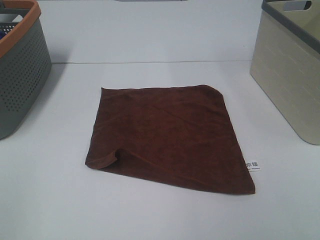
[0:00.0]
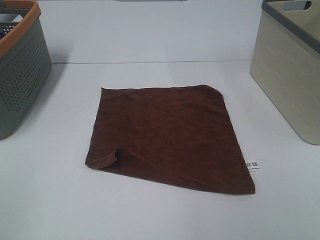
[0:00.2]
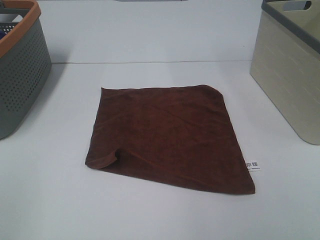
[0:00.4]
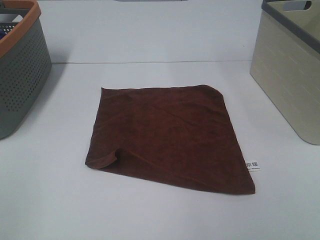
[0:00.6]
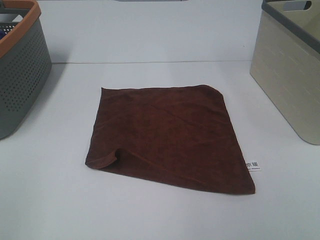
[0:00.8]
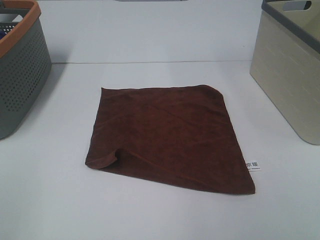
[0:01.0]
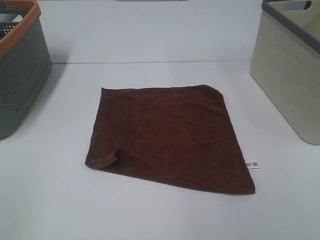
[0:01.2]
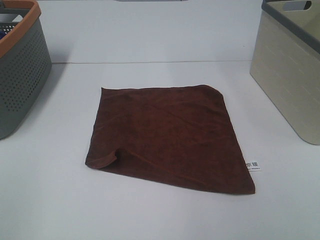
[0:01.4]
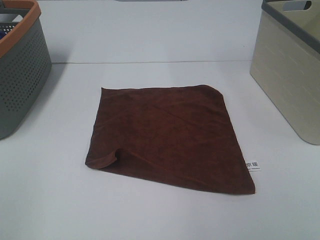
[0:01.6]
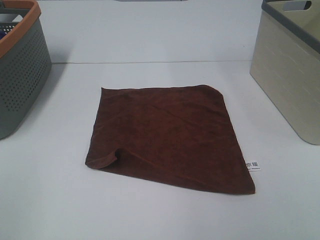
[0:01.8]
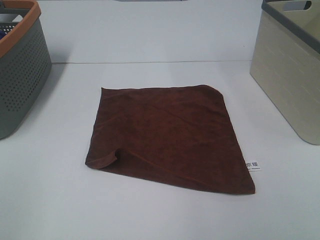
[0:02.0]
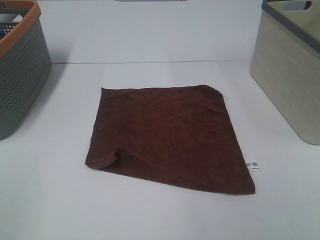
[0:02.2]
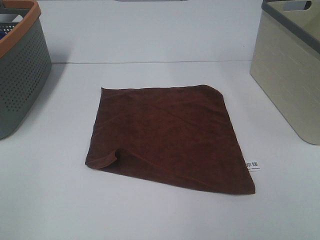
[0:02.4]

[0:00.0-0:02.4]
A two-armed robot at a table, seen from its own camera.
Task of the whole recording: Remove the towel and place it.
0:01.2 to 0:02.4: The two grippers keep their place.

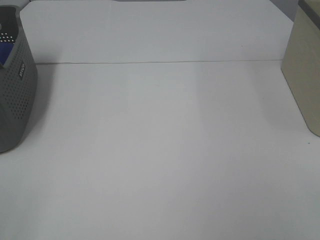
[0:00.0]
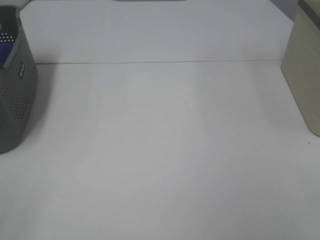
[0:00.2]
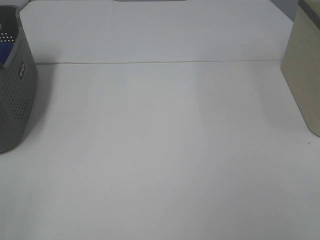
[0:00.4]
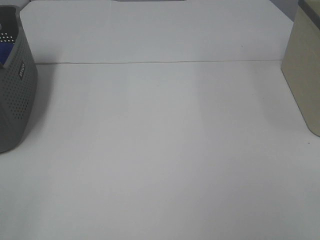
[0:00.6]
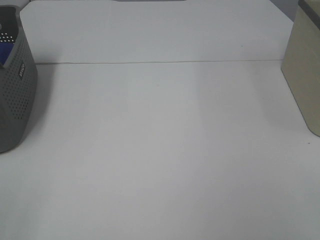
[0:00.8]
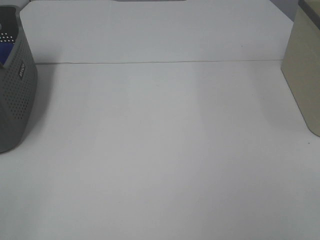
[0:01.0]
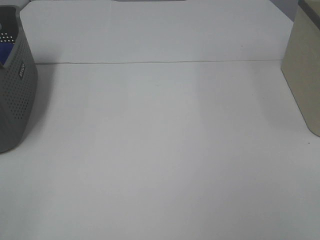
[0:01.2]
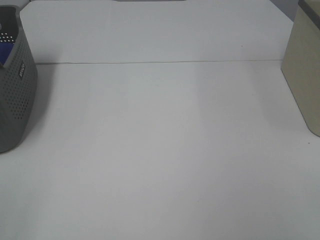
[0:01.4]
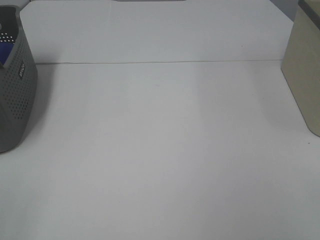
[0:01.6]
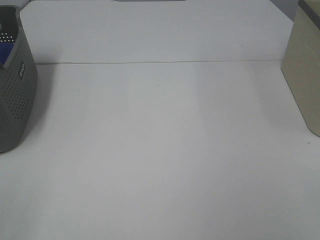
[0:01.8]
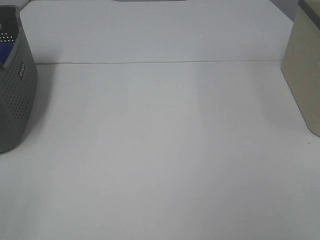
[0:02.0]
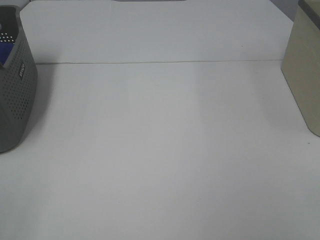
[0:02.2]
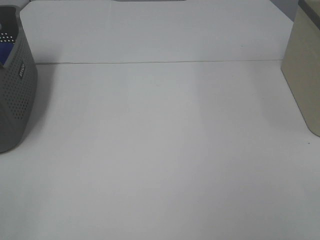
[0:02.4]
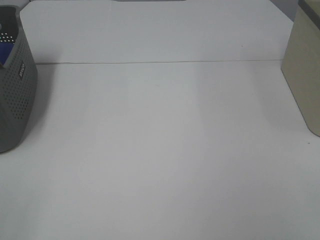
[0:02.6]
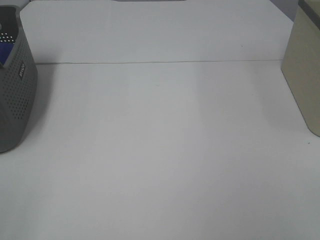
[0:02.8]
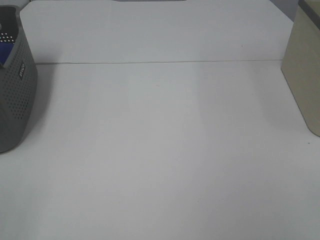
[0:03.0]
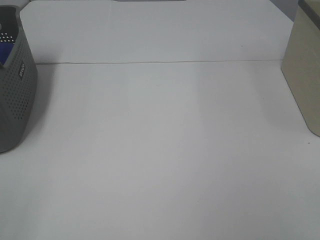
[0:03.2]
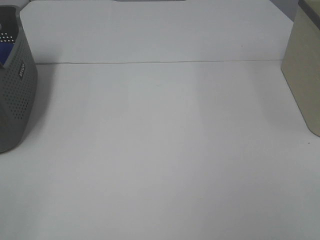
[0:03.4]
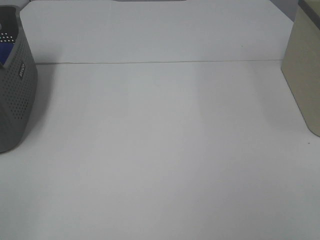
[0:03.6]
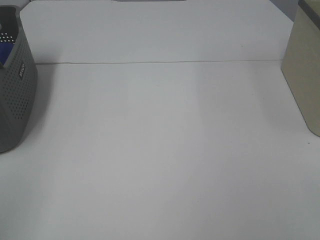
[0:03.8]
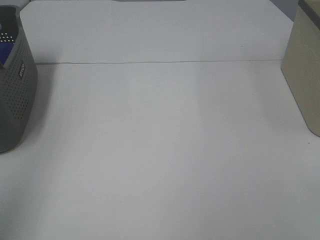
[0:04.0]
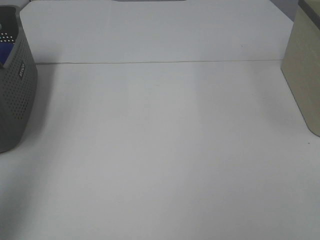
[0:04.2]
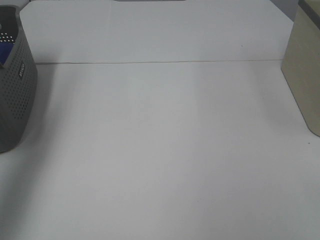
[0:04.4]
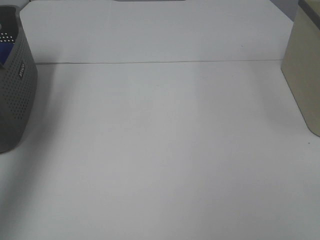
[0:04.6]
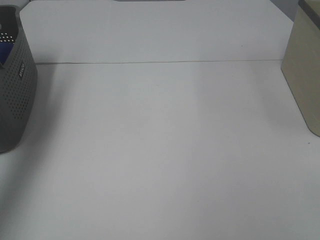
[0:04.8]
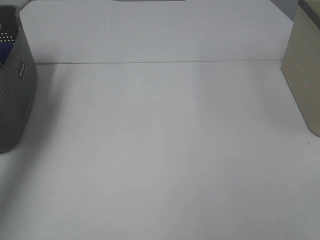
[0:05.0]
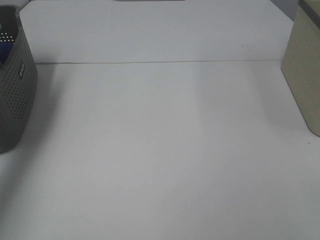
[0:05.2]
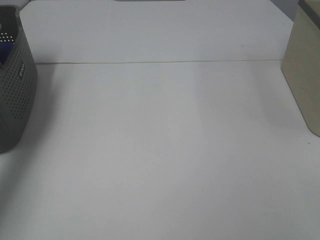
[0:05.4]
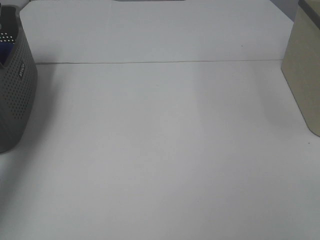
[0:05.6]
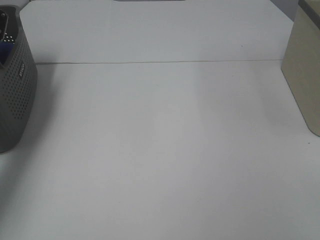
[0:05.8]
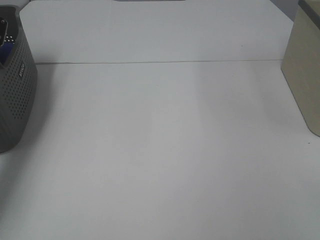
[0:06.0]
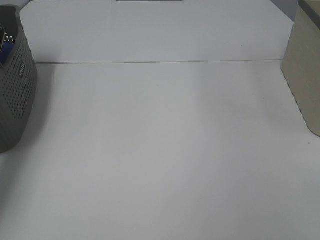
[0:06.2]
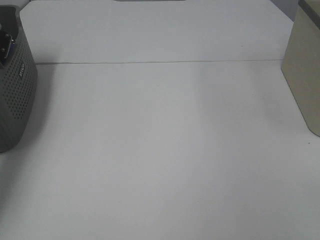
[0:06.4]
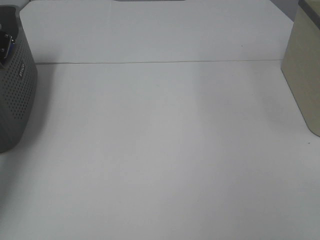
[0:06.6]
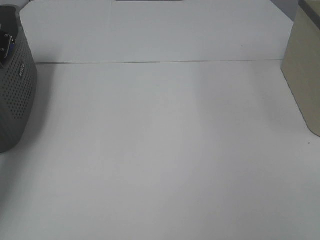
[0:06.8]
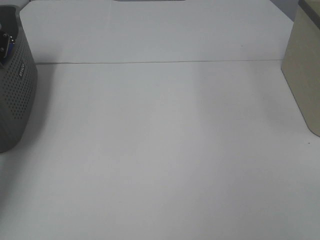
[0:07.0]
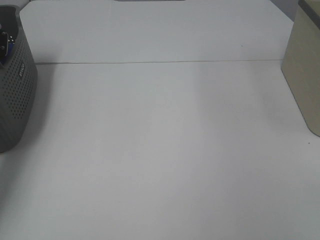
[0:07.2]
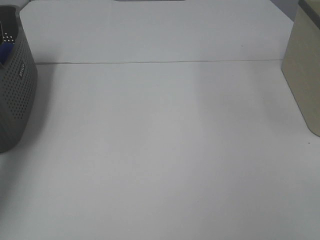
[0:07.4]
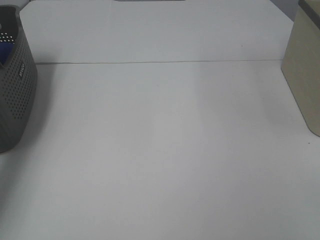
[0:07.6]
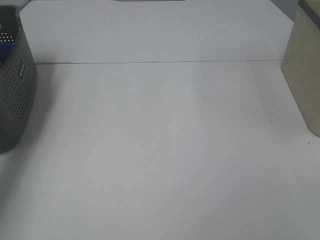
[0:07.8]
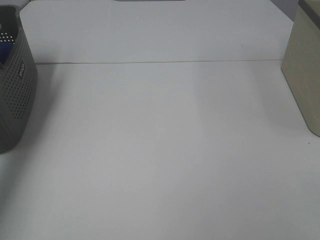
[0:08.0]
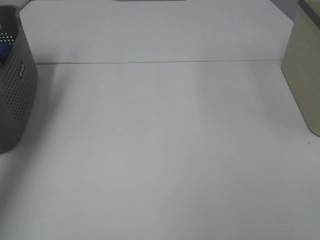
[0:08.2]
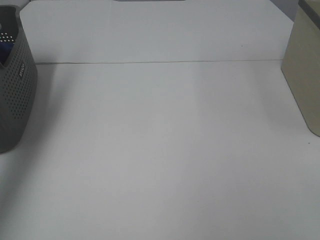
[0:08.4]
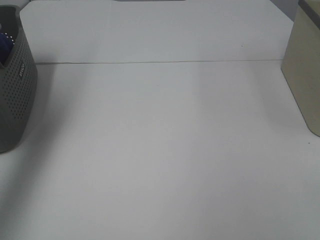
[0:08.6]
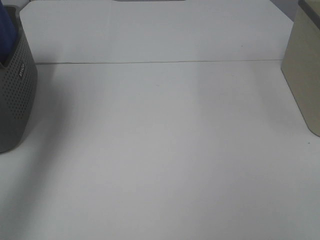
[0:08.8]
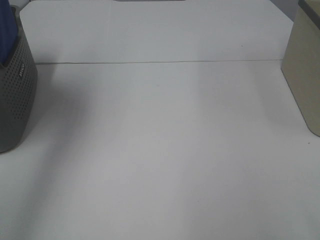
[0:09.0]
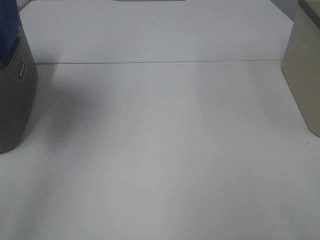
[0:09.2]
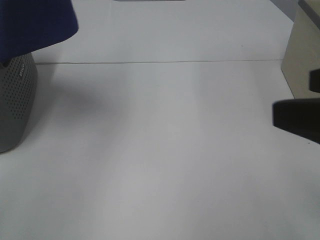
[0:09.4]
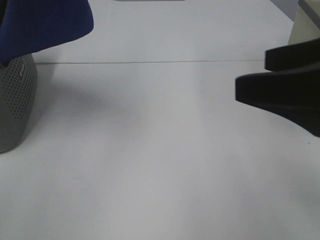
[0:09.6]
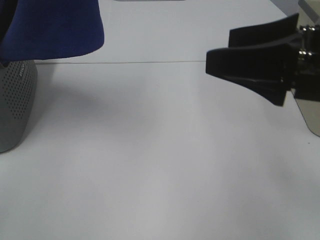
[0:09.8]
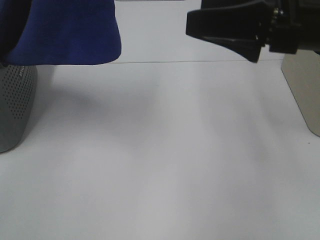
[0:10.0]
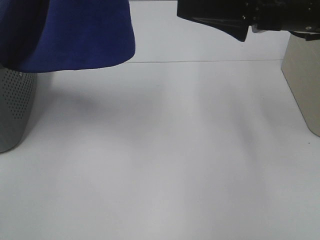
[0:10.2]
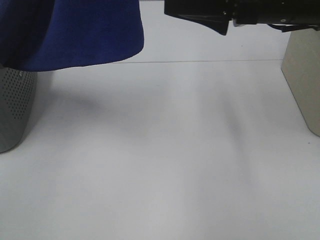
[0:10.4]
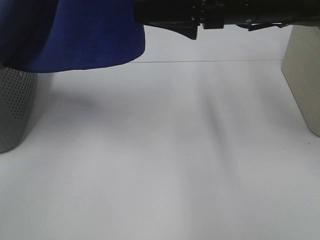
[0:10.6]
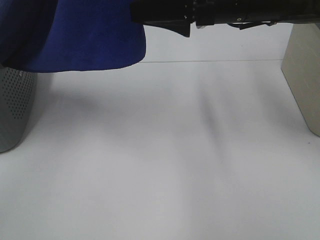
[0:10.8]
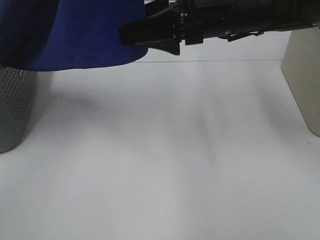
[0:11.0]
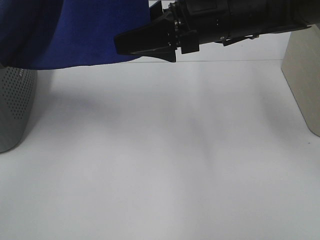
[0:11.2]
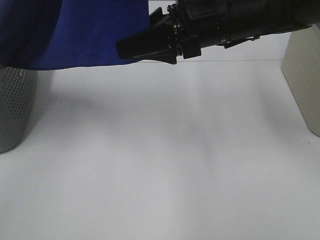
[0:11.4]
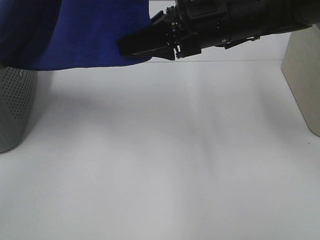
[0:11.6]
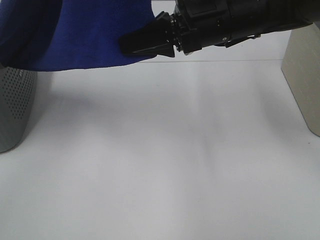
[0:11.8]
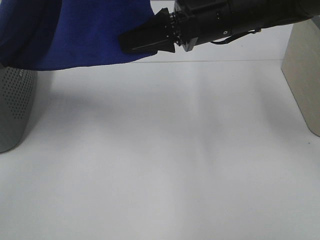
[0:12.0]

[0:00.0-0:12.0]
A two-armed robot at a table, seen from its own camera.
Task of the whole recording: Remove the towel and place it.
Step, 0:08.8 to 0:12.0: Right hand: grab a corner of the blue towel and straighten it.
0:00.0 to 0:03.0: Both grippers stay about where they are.
0:03.0 to 0:04.4: The left gripper is displaced forward and upward by about 30 cm.
0:04.4 to 0:06.0: The left gripper is displaced downward and forward by about 30 cm.
0:07.6 to 0:09.0: The left gripper is displaced upward, backward and to the right by roughly 35 cm.
0:09.0 to 0:10.4: The right gripper heads forward and to the left, covering roughly 30 cm. The left gripper shifts about 15 cm to the right and backward.
0:10.4 to 0:12.0: The right gripper is displaced to the left by approximately 5 cm, and closes up.

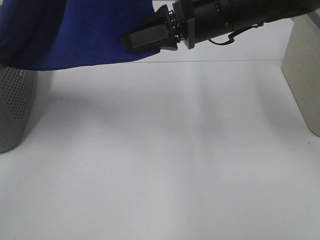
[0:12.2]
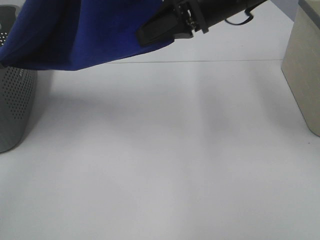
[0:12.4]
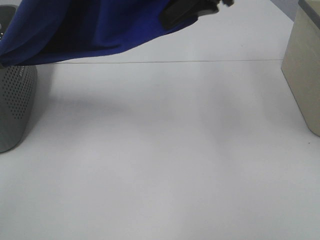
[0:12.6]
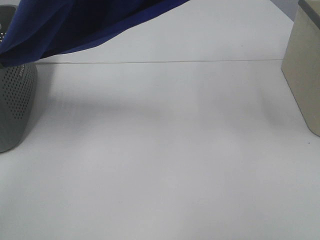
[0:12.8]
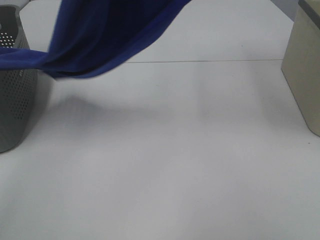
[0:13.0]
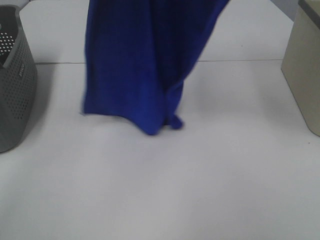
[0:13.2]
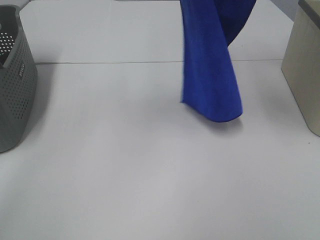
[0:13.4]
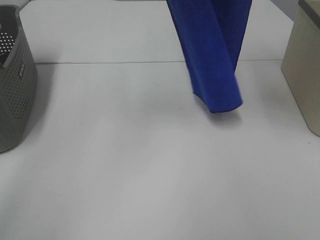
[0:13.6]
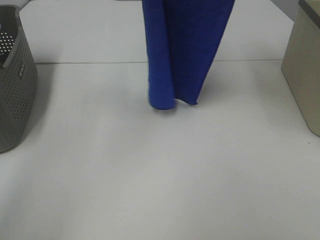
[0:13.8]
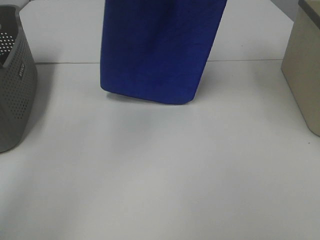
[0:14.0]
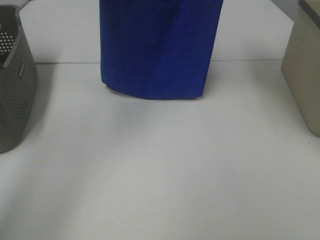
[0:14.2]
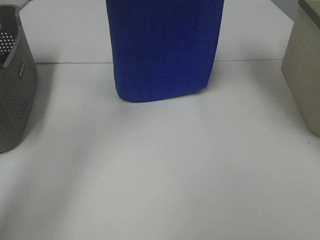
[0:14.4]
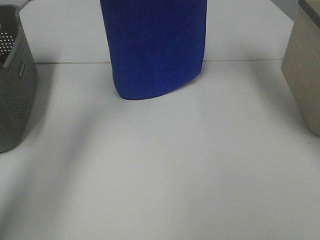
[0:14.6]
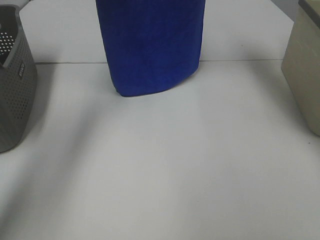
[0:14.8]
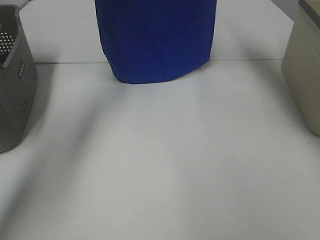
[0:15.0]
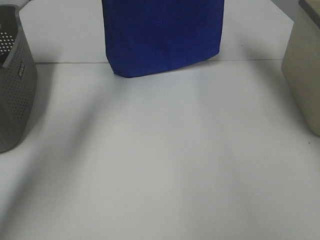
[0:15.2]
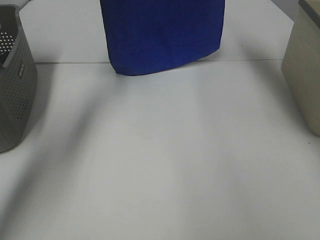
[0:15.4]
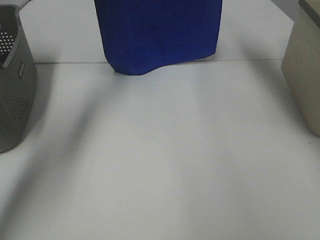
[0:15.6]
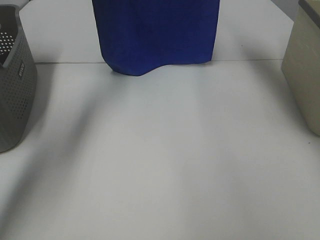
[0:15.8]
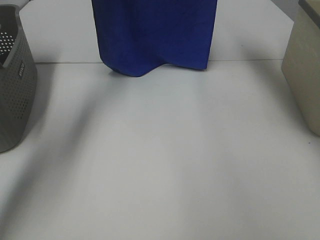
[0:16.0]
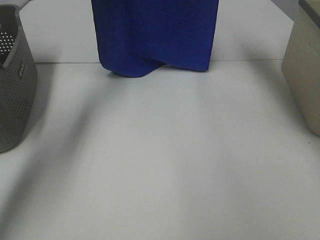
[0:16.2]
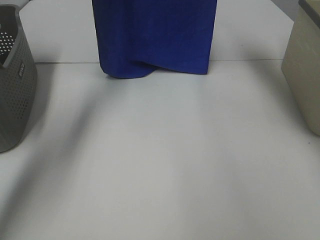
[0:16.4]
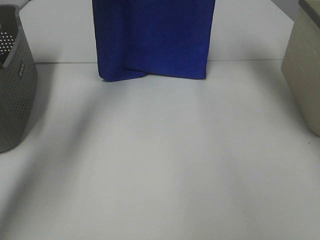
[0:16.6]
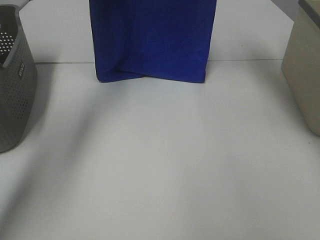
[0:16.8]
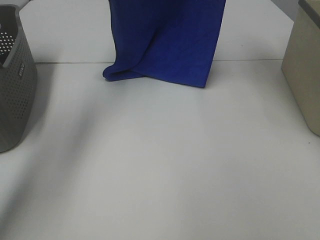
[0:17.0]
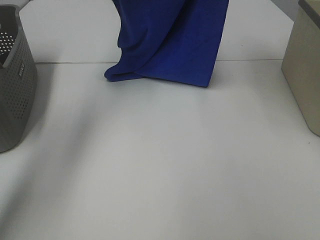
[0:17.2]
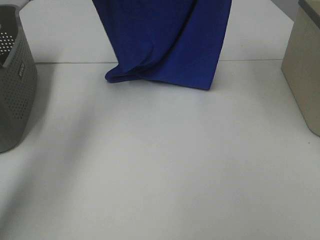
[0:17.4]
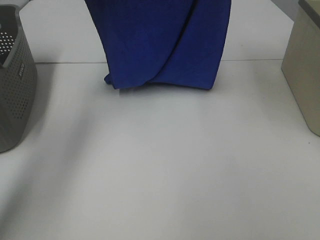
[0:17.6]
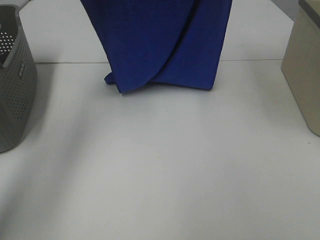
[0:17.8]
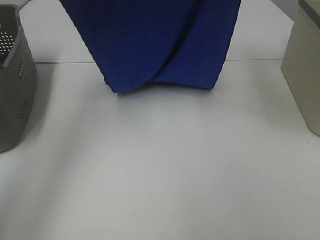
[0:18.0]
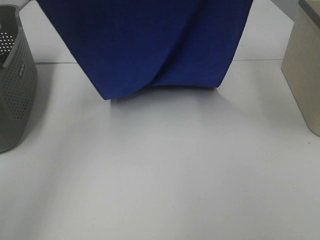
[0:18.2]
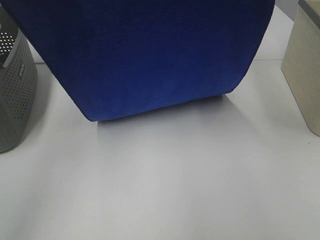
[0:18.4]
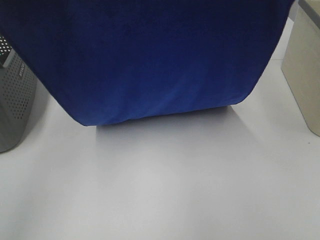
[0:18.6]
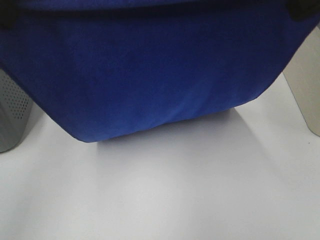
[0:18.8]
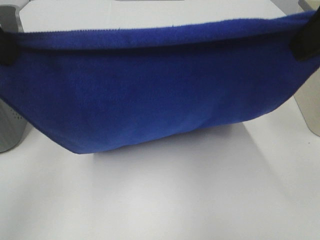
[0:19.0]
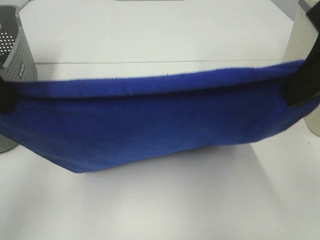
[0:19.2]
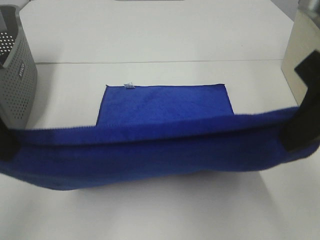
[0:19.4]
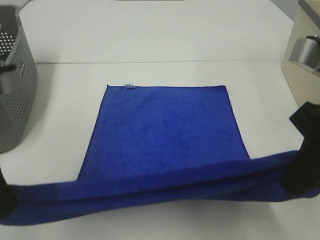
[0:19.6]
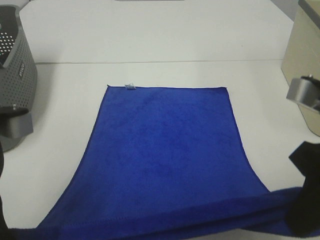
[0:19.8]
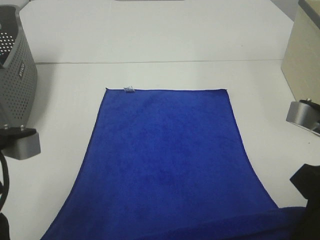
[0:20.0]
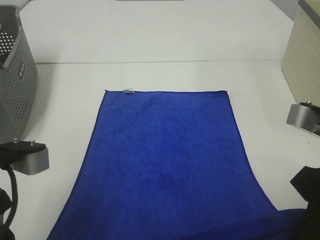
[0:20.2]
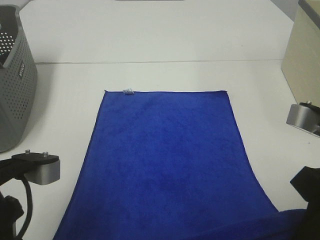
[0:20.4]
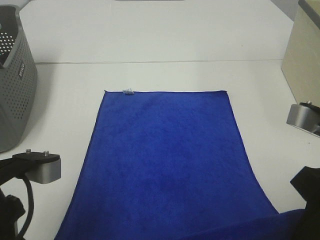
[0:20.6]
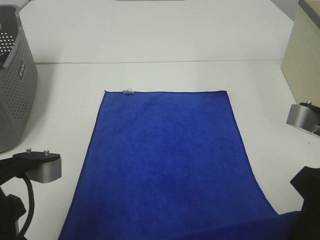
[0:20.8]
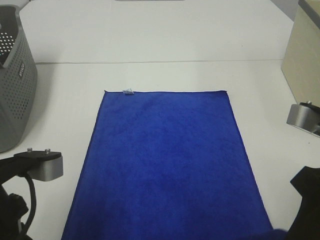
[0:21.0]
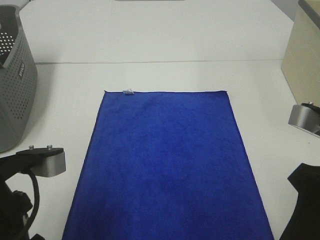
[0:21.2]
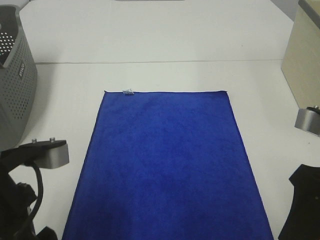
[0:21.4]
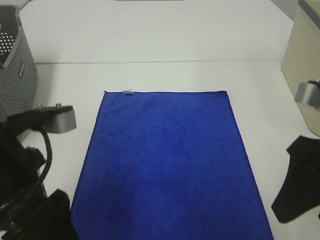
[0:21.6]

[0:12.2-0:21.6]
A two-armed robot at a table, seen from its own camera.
Task of the whole recording: Remove the towel and place it.
Step, 0:12.2 to 0:16.8: Left hand: spread the blue towel flat on the table.
Step, 0:12.2 to 0:16.8: Right hand: spread the blue towel flat on the table.
0:12.2 to 0:13.8: The left gripper goes approximately 10 cm forward; the right gripper moves upward, approximately 25 cm.
0:13.8 to 0:15.4: The left gripper is displaced forward, downward and to the left by some 20 cm. Meanwhile the right gripper moves forward, approximately 15 cm.
0:17.0 to 0:18.4: The two grippers go roughly 20 cm backward.
0:18.4 to 0:20.0: The grippers both shift downward and backward by approximately 25 cm.
0:20.0 to 0:21.6: The left gripper opens up; the right gripper opens.
